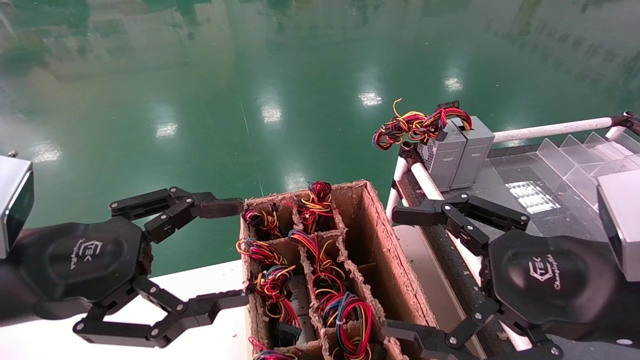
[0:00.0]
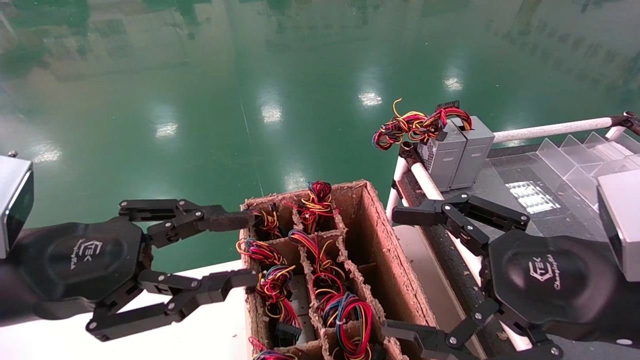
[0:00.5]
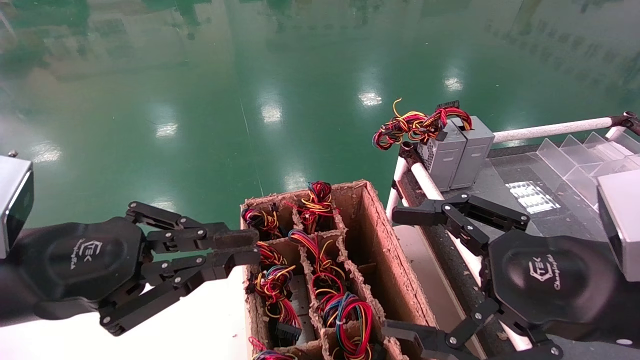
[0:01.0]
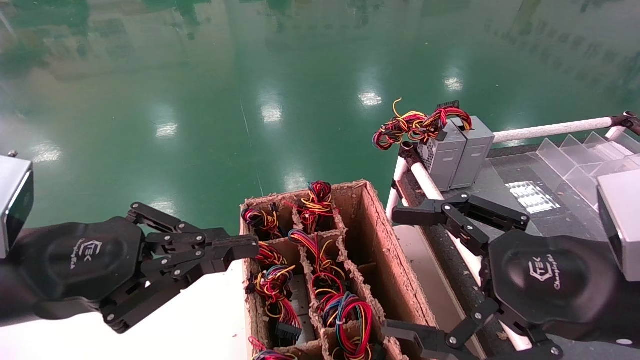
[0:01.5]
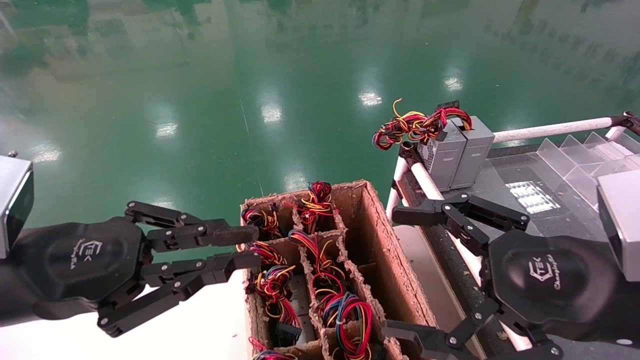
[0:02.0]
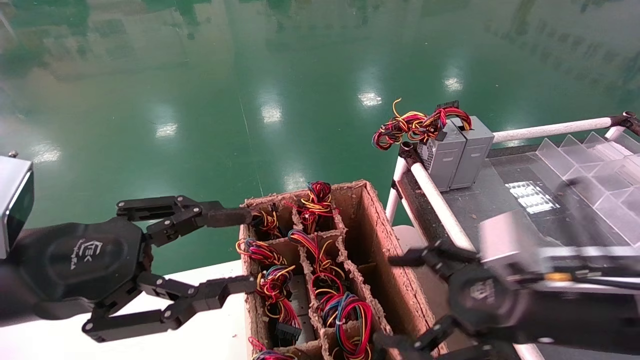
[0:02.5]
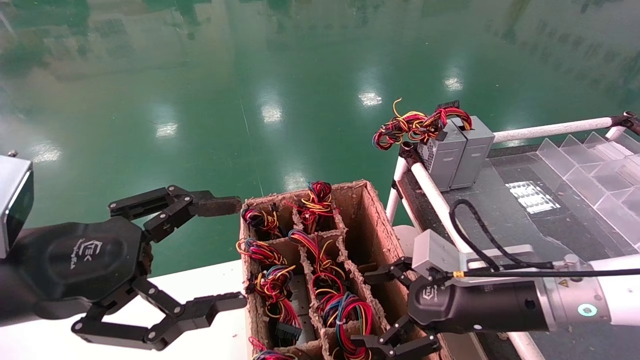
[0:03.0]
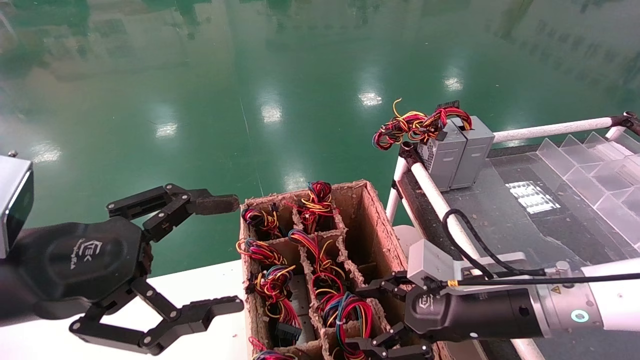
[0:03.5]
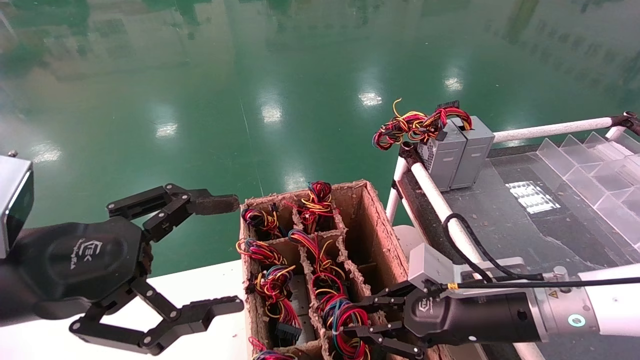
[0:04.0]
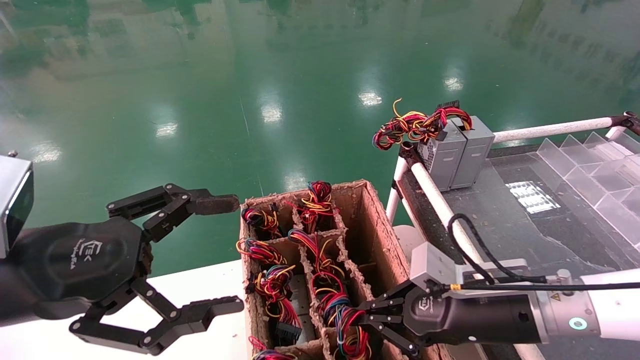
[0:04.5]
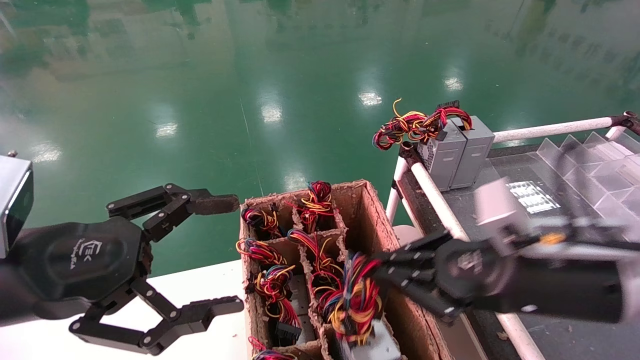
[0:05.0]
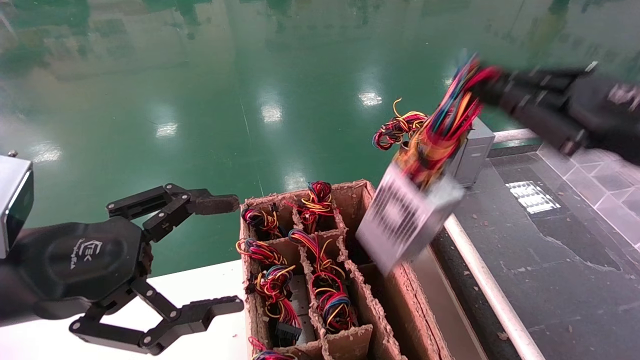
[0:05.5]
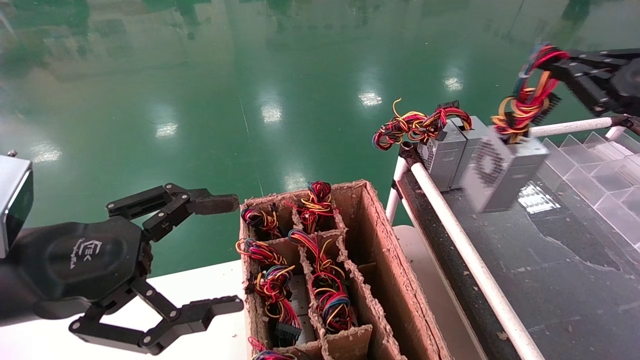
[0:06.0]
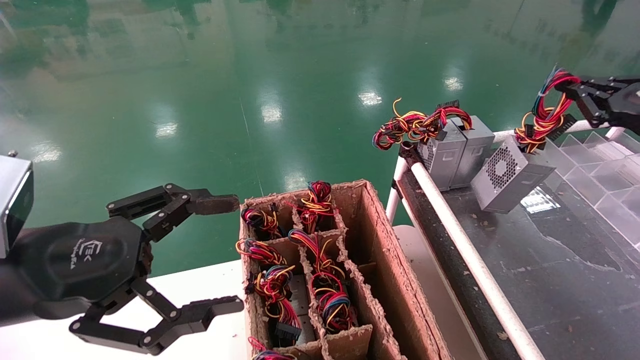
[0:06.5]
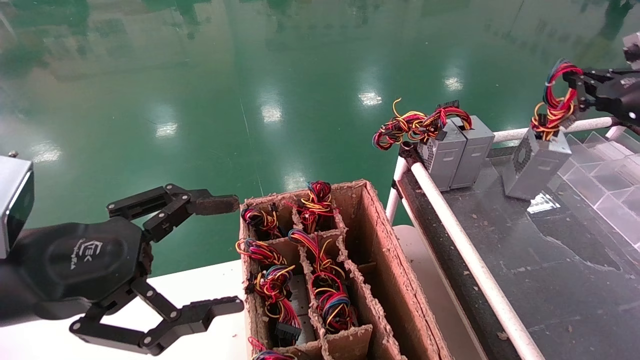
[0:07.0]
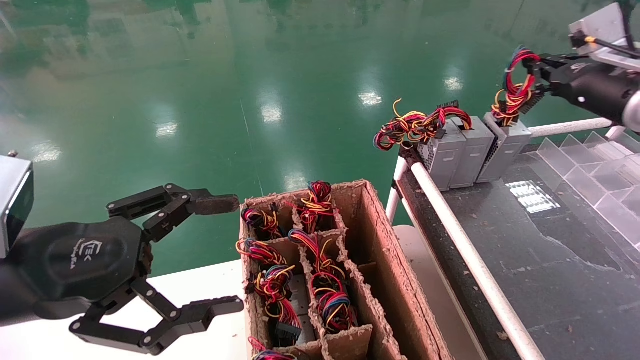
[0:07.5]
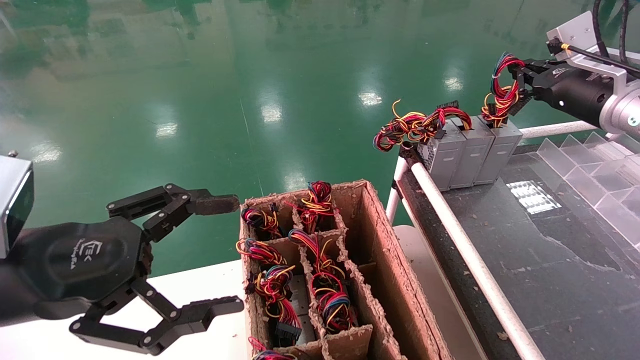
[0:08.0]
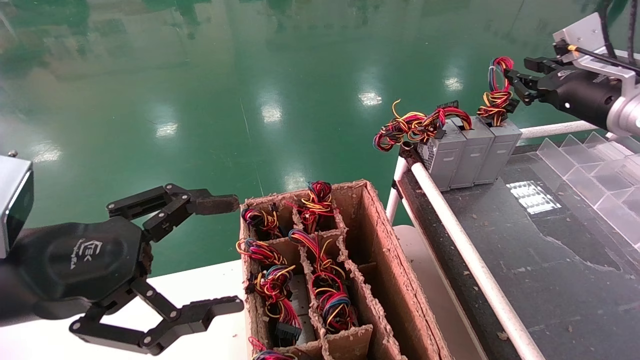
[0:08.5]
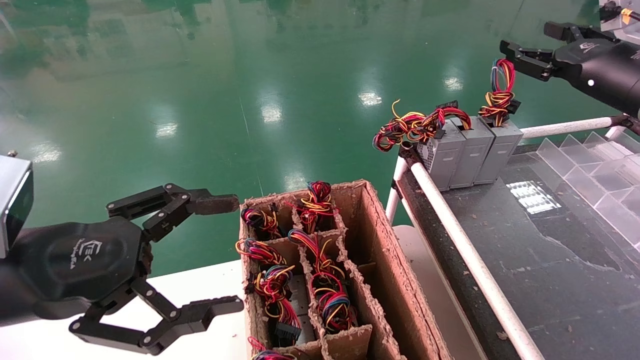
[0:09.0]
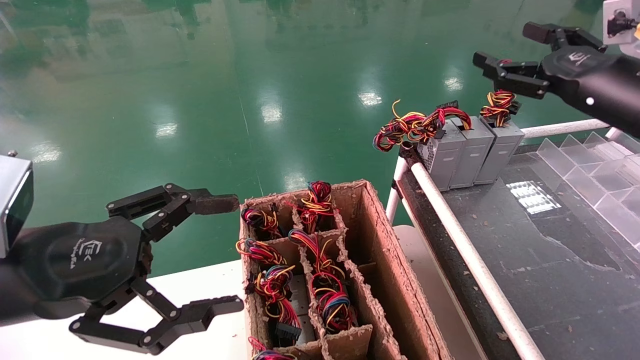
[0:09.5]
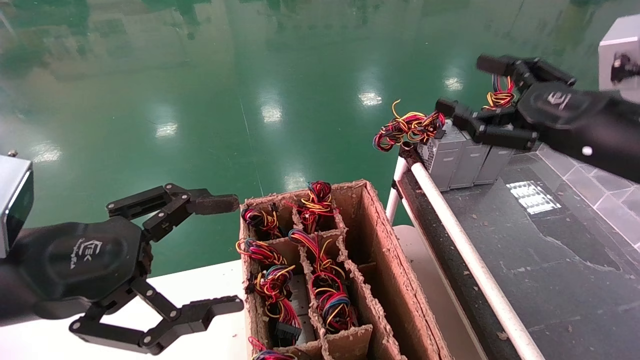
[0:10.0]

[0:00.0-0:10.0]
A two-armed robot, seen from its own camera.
Step, 0:01.5 to 0:04.5: Grab and lift the power supply from the large box.
Step, 0:05.0 to 0:08.0: Place the power supply on the operating table.
0:00.0 to 0:02.0: The left gripper closes.
0:02.0 to 0:04.0: The right gripper heads forward and downward, covering roughly 15 cm, and closes up, while the left gripper opens its fingers.
0:04.0 to 0:06.0: The right gripper travels upward and to the right by about 30 cm, and closes its fingers.
0:06.0 to 0:08.0: The right gripper travels forward by roughly 15 cm.
0:08.0 to 0:10.0: The right gripper is displaced backward and to the left by approximately 15 cm, and opens.
